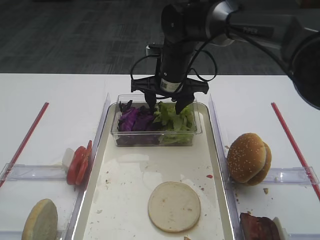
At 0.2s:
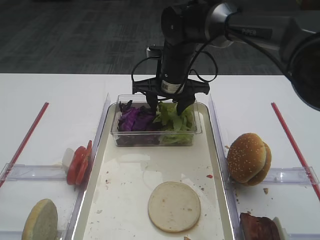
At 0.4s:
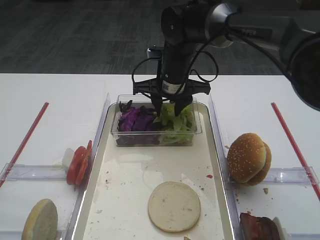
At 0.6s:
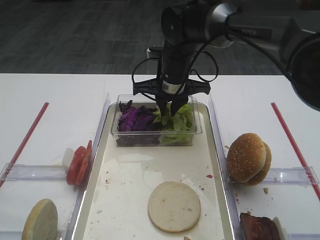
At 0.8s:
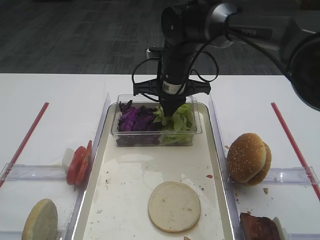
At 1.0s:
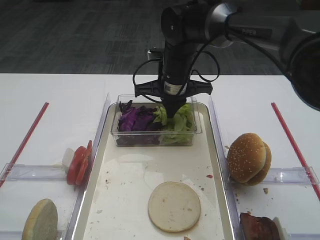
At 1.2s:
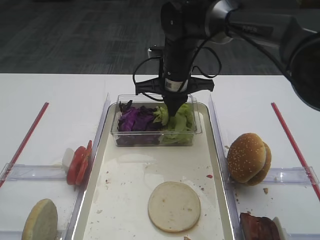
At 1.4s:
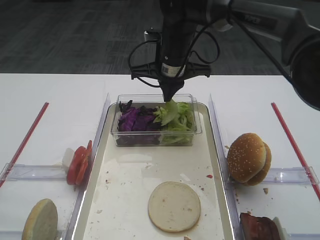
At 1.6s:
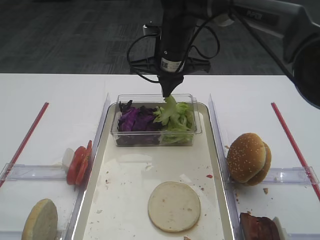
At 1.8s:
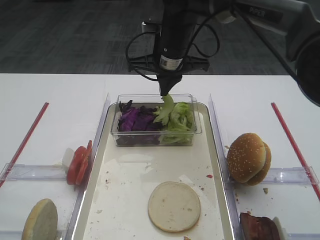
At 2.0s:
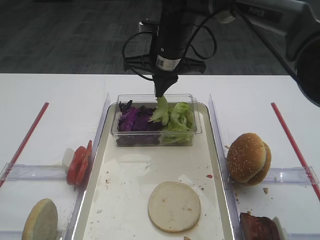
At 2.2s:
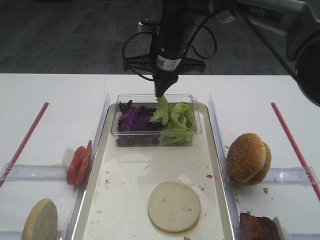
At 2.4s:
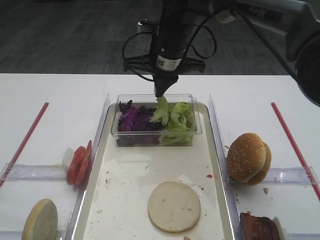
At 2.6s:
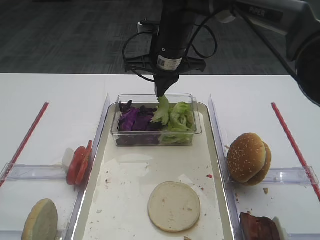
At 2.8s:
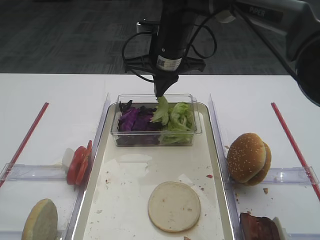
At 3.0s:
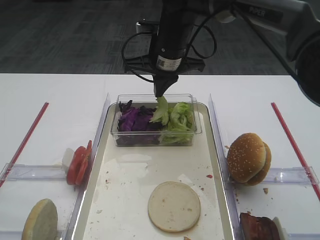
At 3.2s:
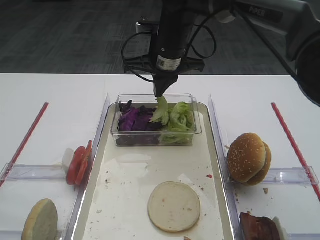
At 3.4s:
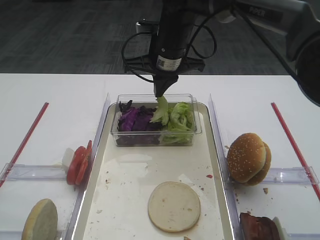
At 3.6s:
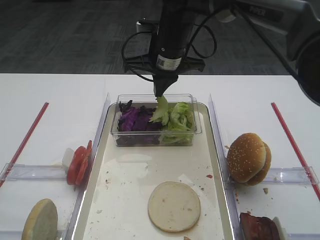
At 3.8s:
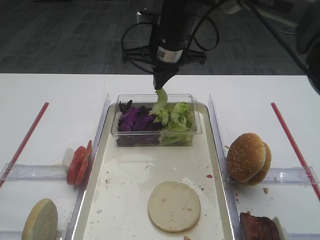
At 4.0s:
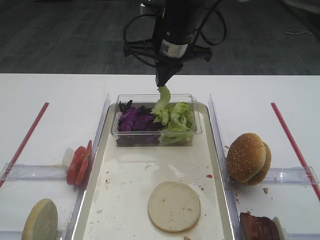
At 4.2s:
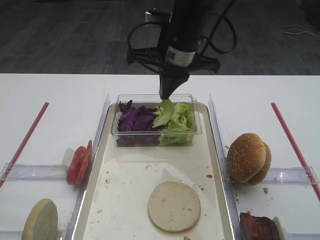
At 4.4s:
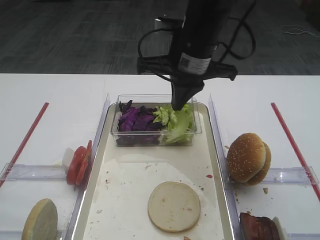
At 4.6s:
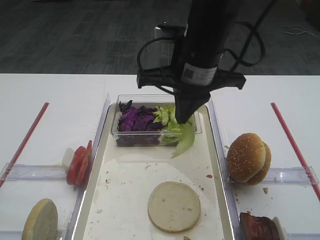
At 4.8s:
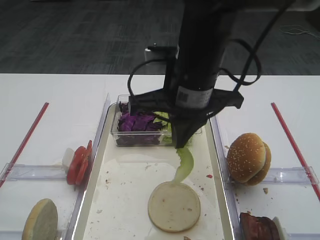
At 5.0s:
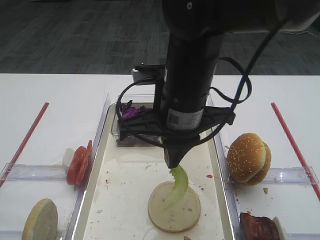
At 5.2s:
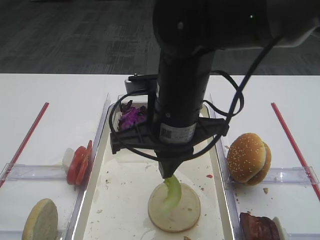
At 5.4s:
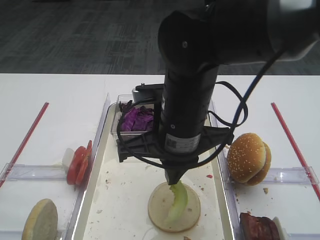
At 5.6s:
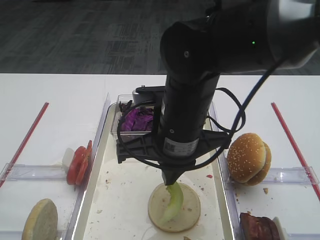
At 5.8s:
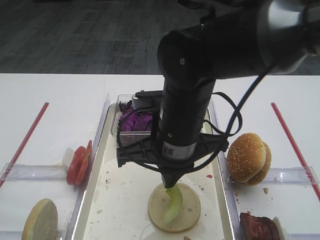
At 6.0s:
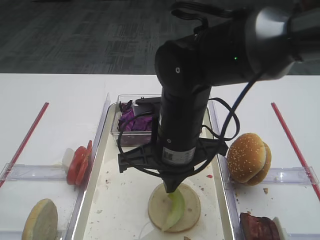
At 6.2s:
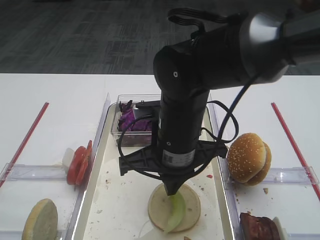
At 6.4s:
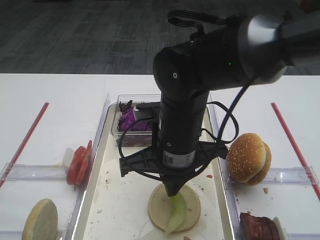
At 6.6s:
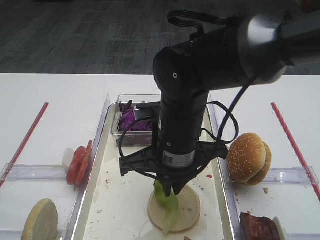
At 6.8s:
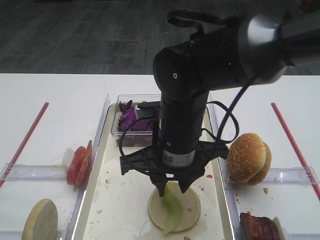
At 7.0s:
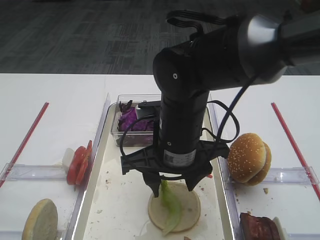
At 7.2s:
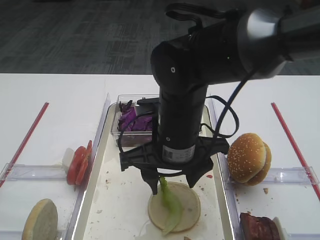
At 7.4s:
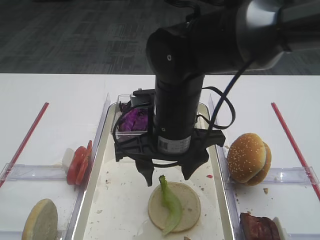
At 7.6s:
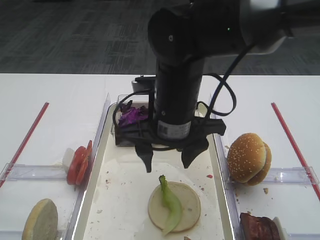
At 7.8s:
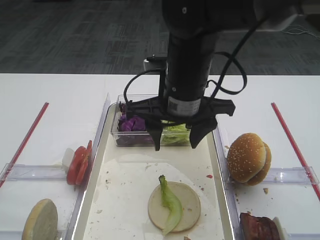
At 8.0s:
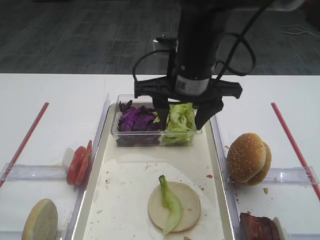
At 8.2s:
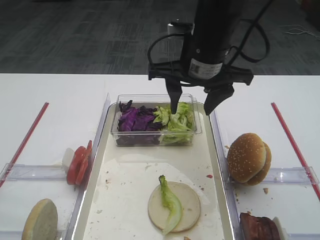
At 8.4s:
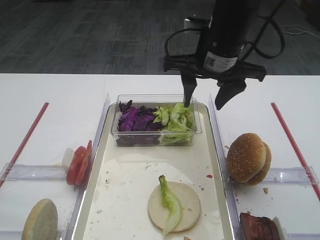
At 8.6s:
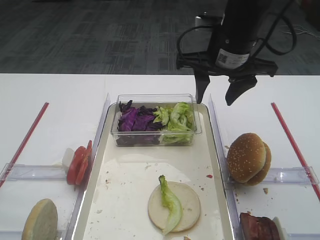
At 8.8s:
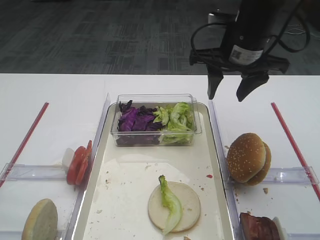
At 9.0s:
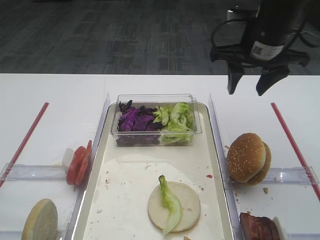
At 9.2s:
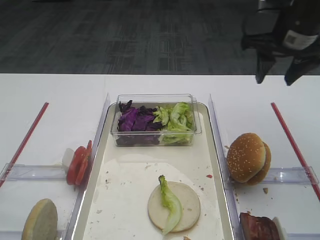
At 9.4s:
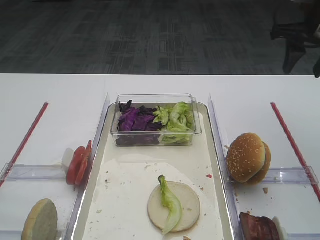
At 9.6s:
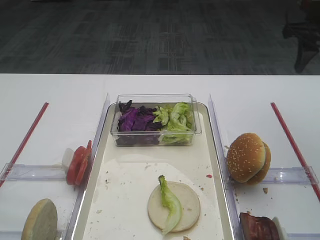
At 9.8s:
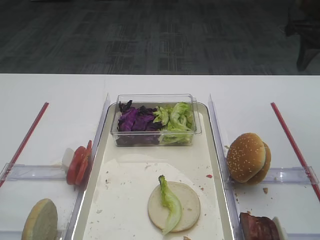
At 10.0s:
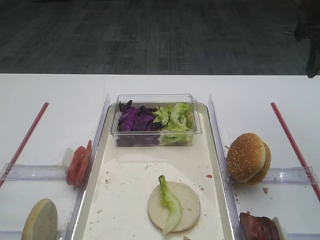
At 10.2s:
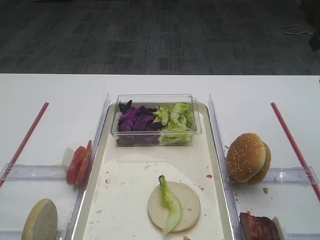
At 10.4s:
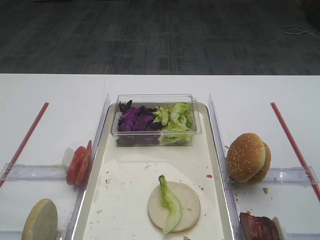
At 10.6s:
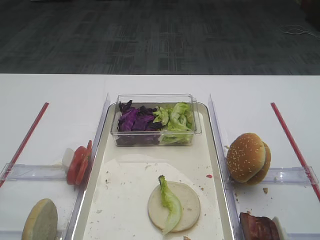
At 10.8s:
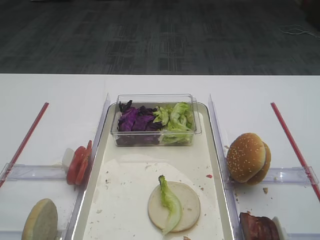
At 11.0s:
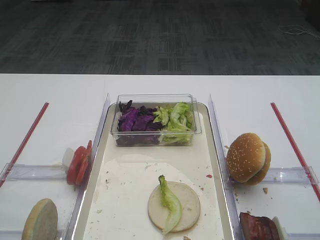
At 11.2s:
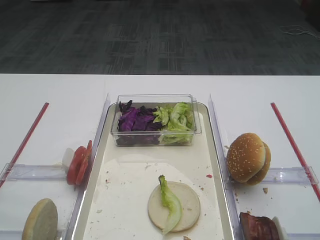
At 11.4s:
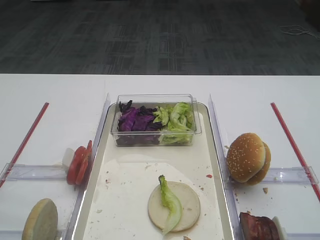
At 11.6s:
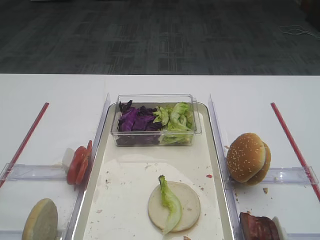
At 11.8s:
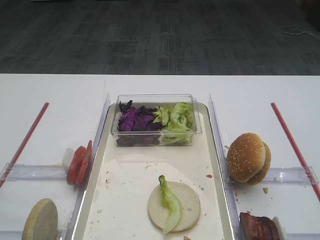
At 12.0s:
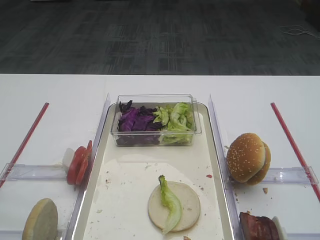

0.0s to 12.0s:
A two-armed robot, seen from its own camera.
Step, 2.0s to 7.2s: Place the lettuce leaf on the bread slice with the right gripper.
0.0s to 1.6s: The right gripper closes its fingers.
1.6s to 3.0s: The grippers move only a little.
3.0s to 4.4s: The right gripper travels backward by some 10 cm.
4.4s to 6.0s: The right gripper is displaced backward and downward by approximately 15 cm.
6.0s to 7.6s: The right gripper opens up.
7.6s to 9.0s: The right gripper heads to the right and forward, covering about 20 cm.
9.0s to 10.4s: The right gripper goes roughly 20 cm backward, to the right and upward.
